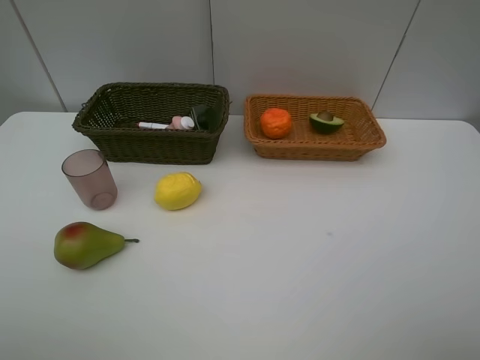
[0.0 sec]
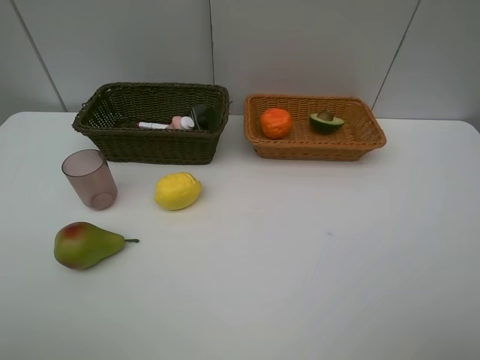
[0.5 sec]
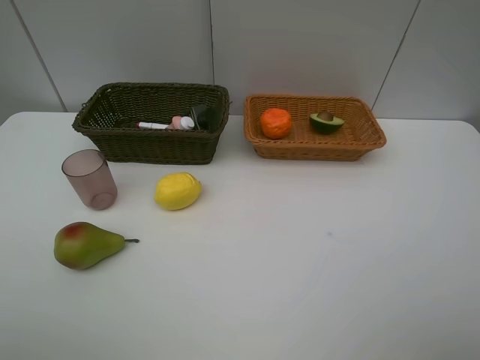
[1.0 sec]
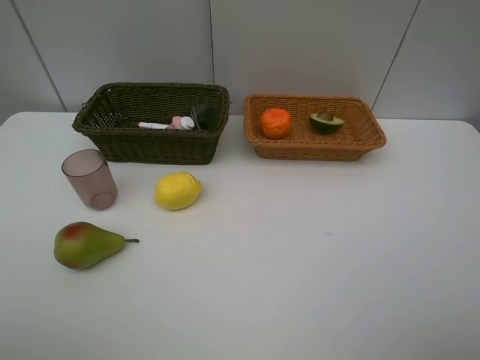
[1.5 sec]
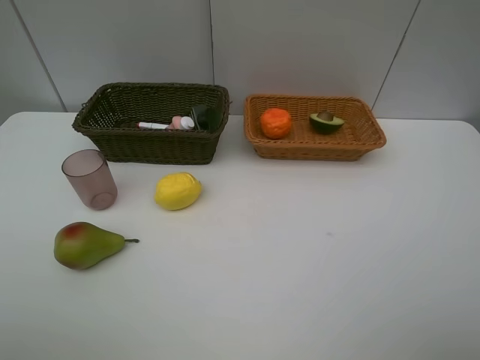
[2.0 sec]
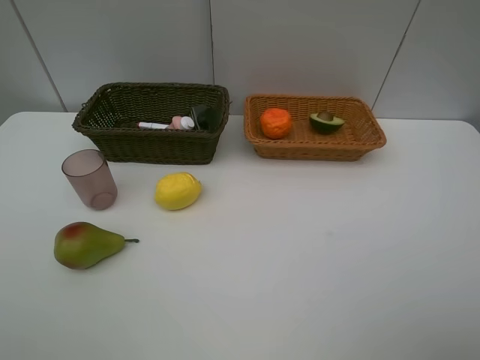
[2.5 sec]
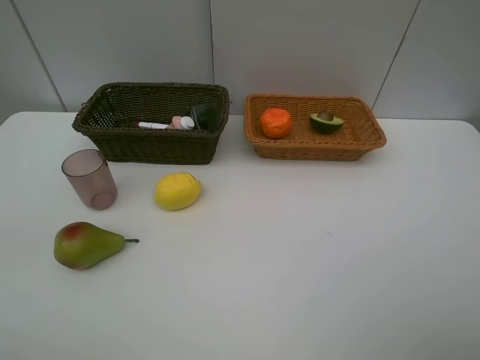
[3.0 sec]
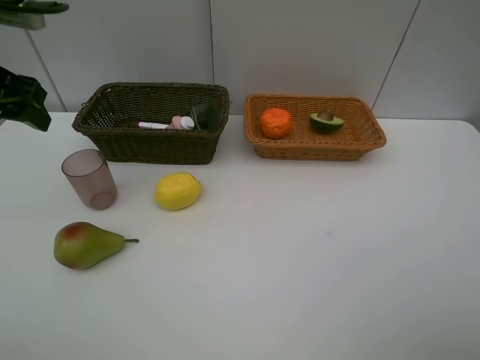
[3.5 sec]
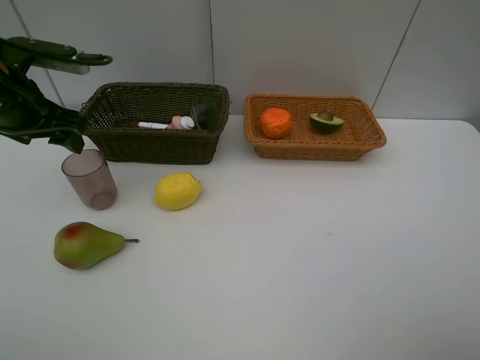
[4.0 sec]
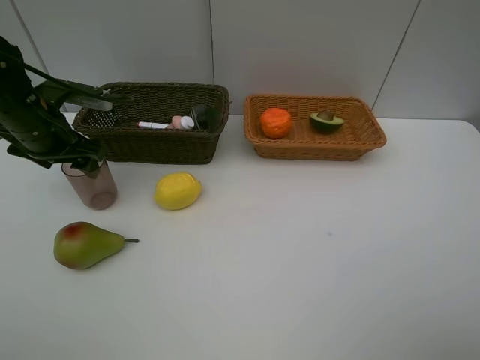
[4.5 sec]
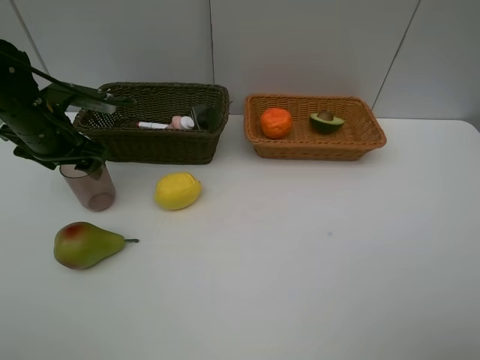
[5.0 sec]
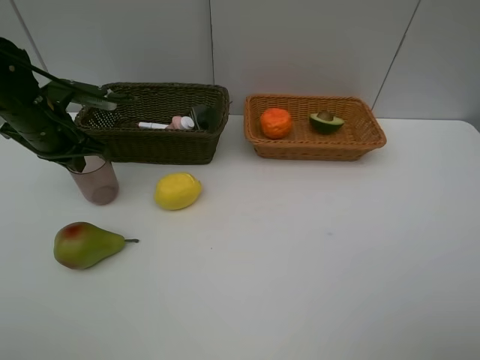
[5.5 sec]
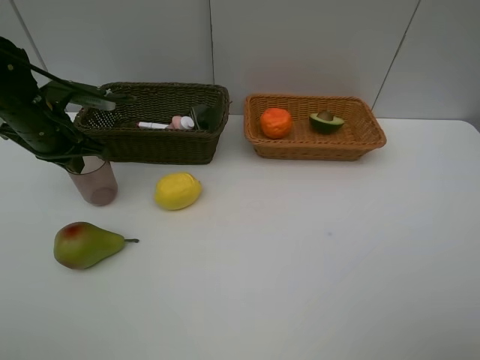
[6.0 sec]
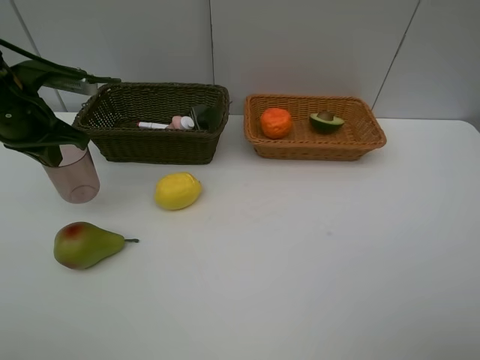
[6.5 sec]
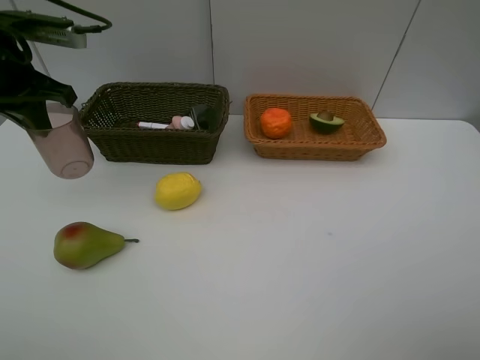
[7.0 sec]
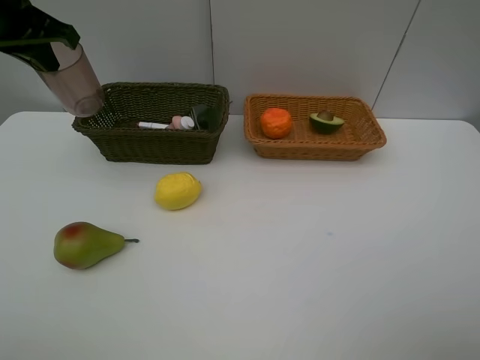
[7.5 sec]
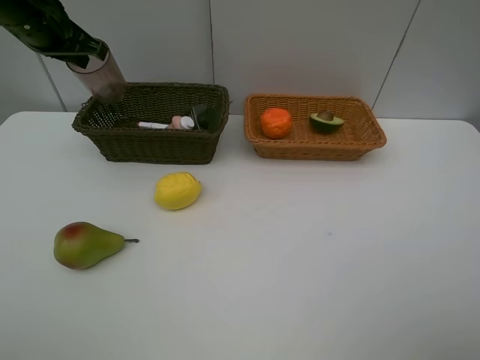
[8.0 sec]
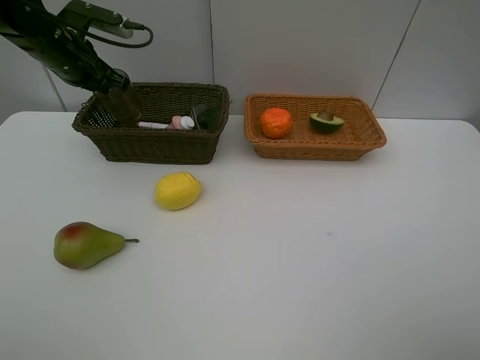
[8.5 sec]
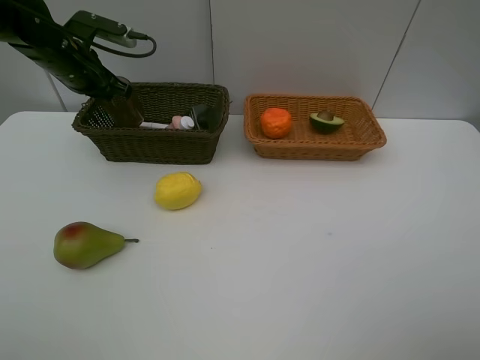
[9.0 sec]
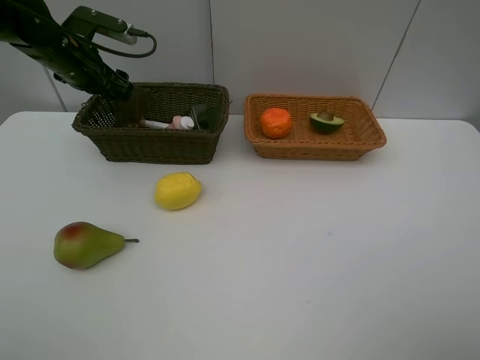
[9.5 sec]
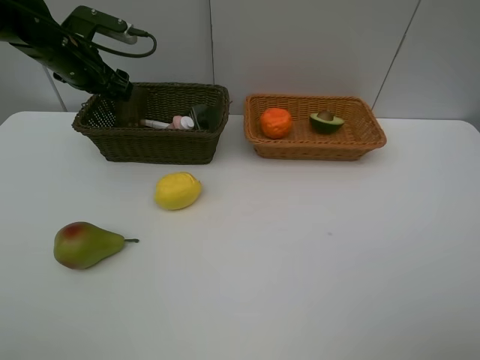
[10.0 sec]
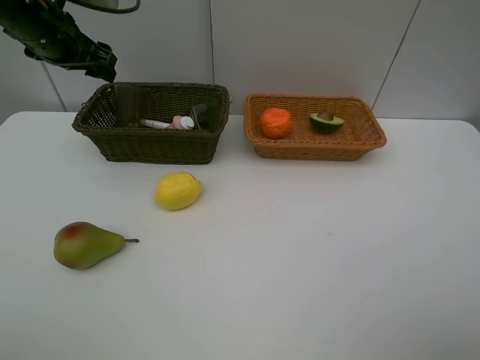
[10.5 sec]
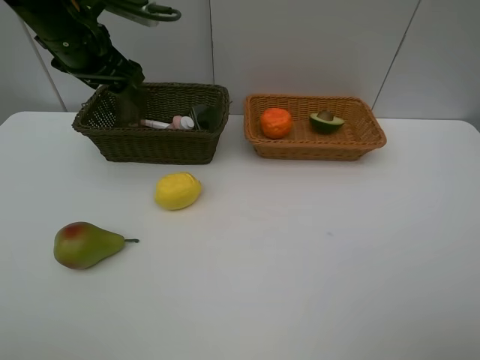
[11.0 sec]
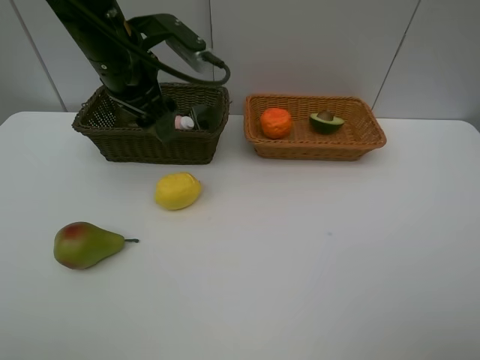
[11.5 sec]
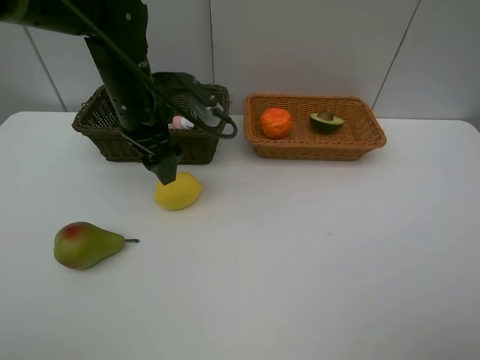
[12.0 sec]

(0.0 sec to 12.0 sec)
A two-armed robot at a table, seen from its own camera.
Task of the whole recording: Place multiple objects separately in different baskets.
Step, 0.0 sec - 6.0 sec: Pick up the red cup with left gripper.
Step, 6.5 sec - 10.0 sec: Place the red cup in the dark basket with left gripper.
2.0 sec - 4.0 sec: The left gripper is displaced forward by approximately 30 cm.
4.0 sec - 6.0 sec: The left gripper travels downward by roughly 5 cm, and closes.
6.0 sec - 8.0 sec: The left gripper goes roughly 15 cm upward and forward.
8.0 sec - 10.0 sec: The left gripper travels downward by roughly 5 cm, and opens its fingers.
10.0 sec - 12.0 sec: The left gripper goes roughly 15 cm to the right and backward.

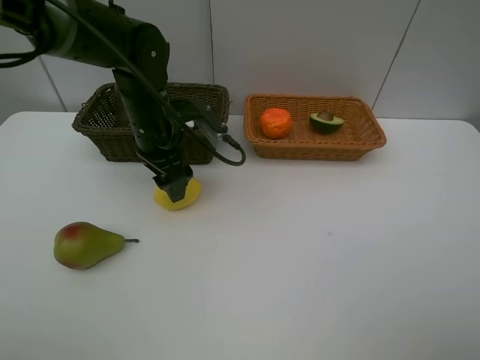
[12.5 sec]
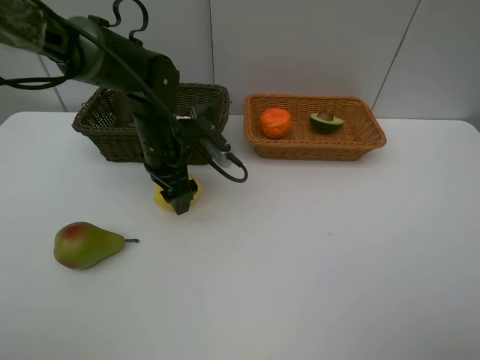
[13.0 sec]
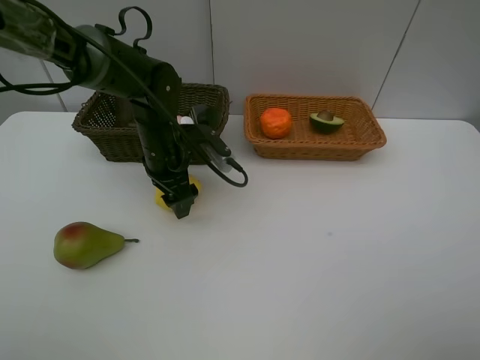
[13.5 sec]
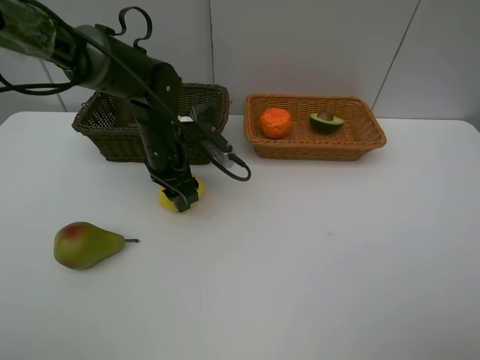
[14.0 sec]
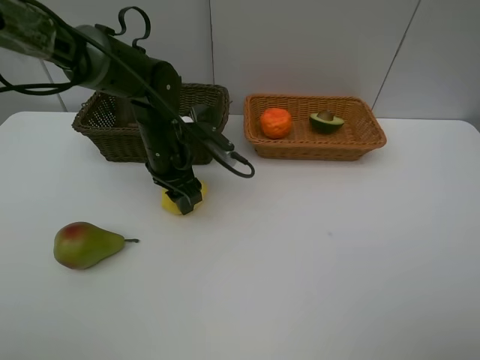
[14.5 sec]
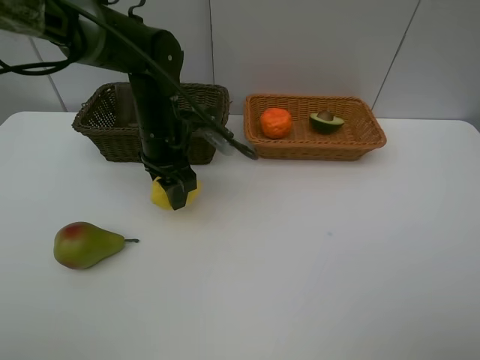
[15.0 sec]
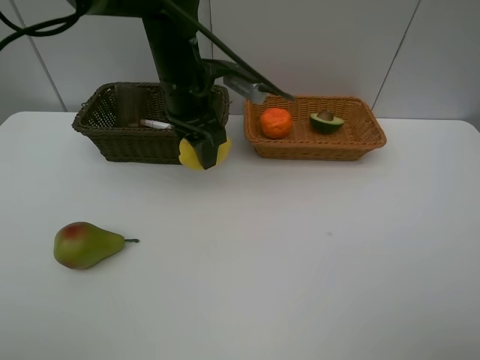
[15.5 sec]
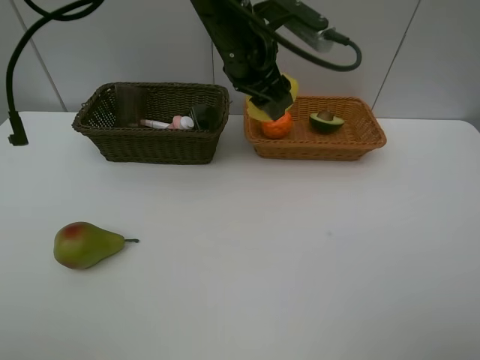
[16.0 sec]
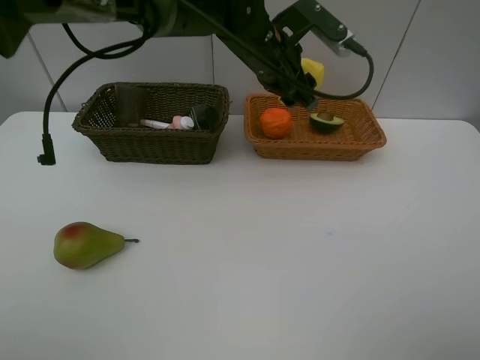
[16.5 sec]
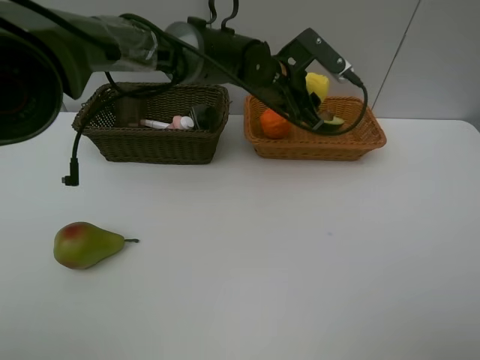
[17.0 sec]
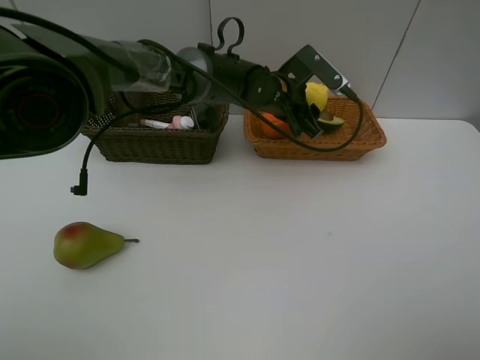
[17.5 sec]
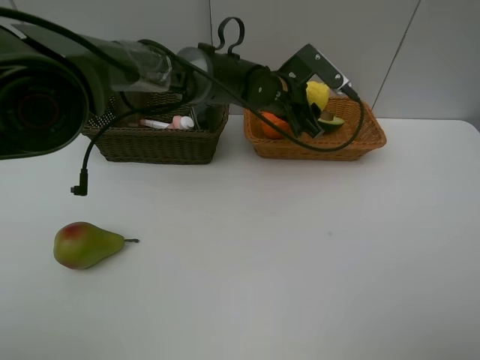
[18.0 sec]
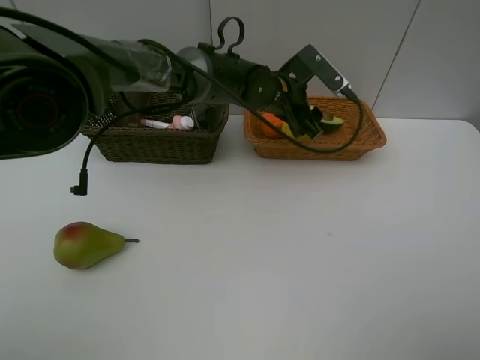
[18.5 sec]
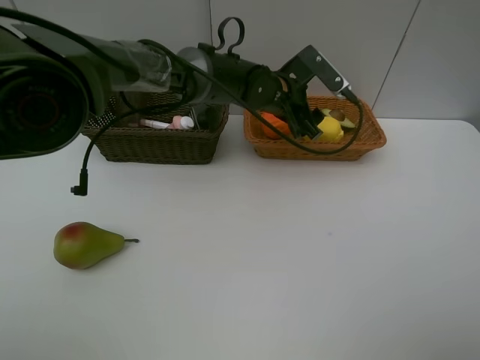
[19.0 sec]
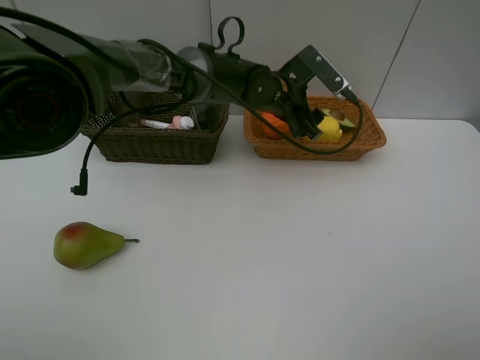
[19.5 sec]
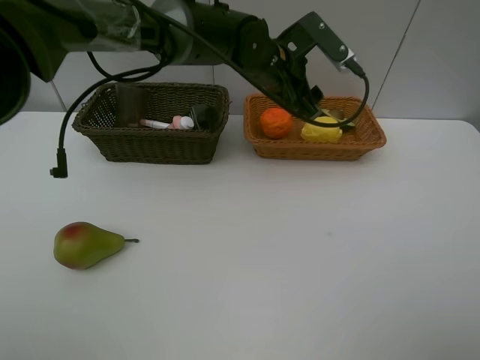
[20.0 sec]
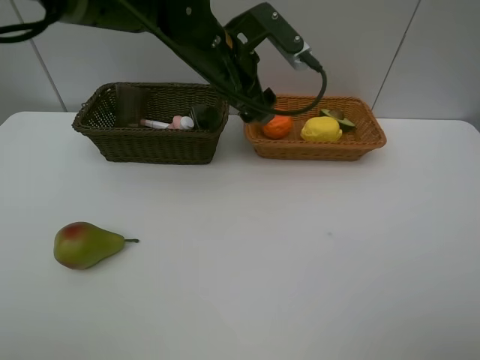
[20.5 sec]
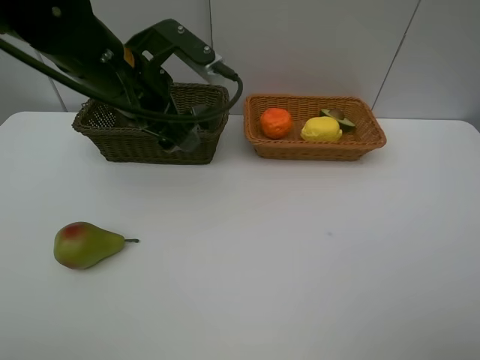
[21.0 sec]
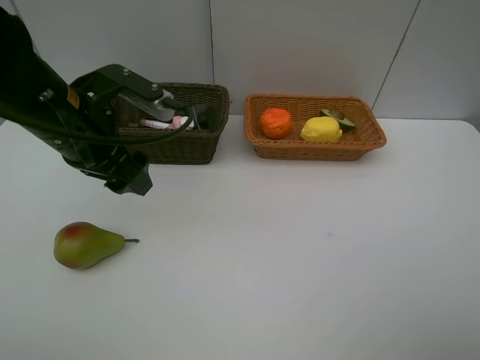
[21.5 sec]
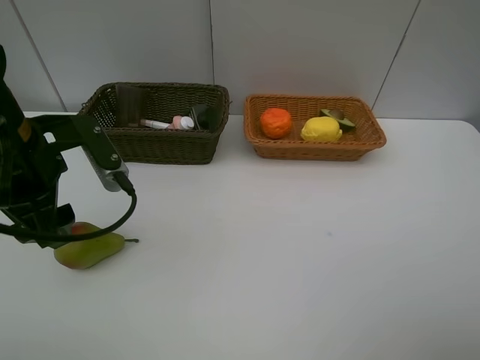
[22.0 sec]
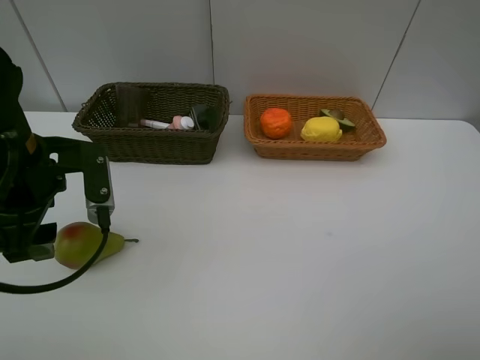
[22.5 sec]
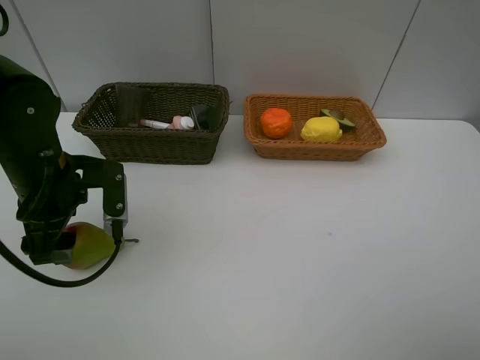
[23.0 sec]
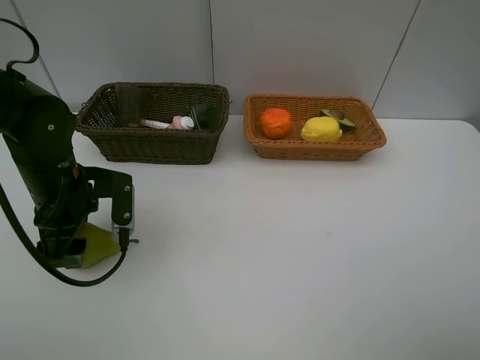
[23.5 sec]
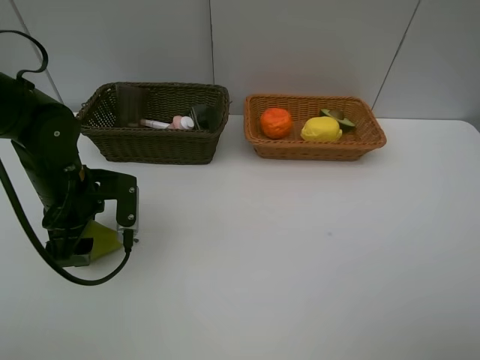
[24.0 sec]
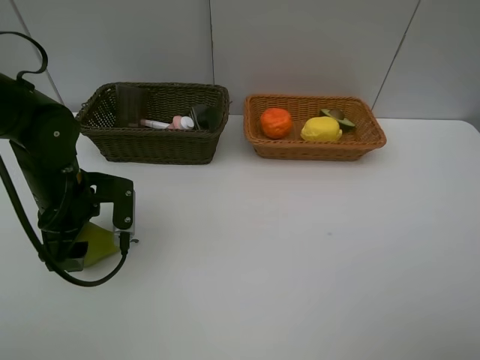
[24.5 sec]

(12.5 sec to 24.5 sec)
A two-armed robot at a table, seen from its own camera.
Task of the whole recording: Place multiple objects separately in different baskets.
Step, 12.5 sec - 15.0 sec: Pick up the lemon with left gripper.
Step, 15.5 sec - 19.5 sec: Place the lemon in the light basket with left gripper.
12.5 sec - 14.5 sec: The grippers stay close to where they were, moving slightly.
14.5 sec - 16.5 sec: The left gripper shifts some 20 cm to the right and upward.
16.5 sec - 18.5 sec: The left gripper moves downward, about 5 cm.
18.5 sec - 20.5 sec: The left gripper heads to the left, upward and backward, covering approximately 15 cm.
20.5 sec - 22.5 sec: The left gripper shifts some 20 cm to the left and backward.
22.5 sec - 24.5 sec: The left gripper travels downward by some 10 cm.

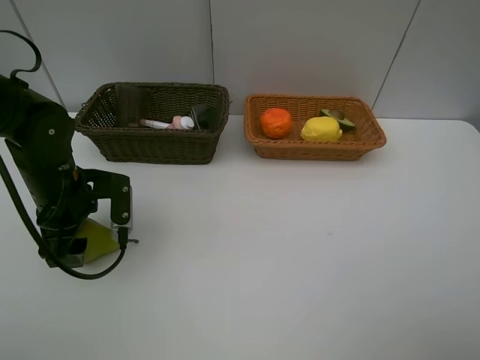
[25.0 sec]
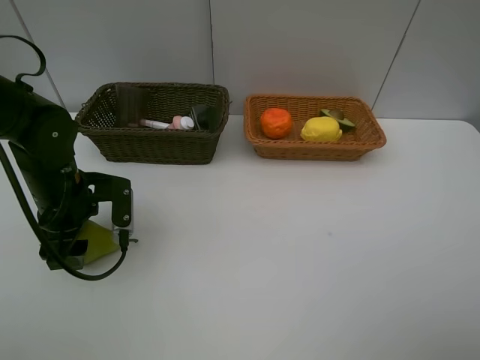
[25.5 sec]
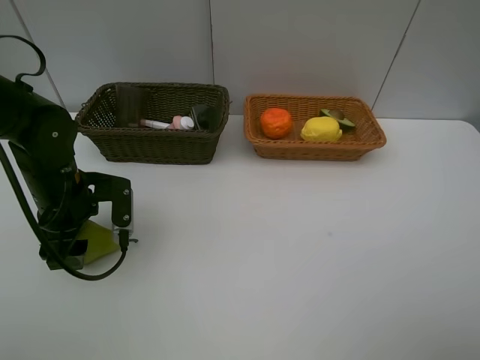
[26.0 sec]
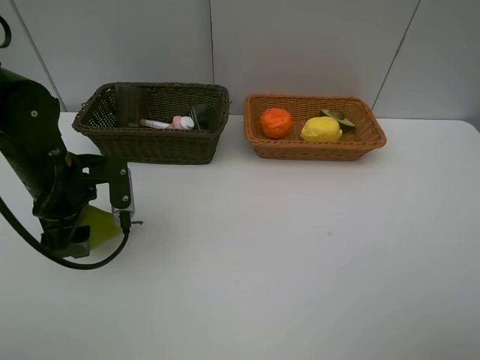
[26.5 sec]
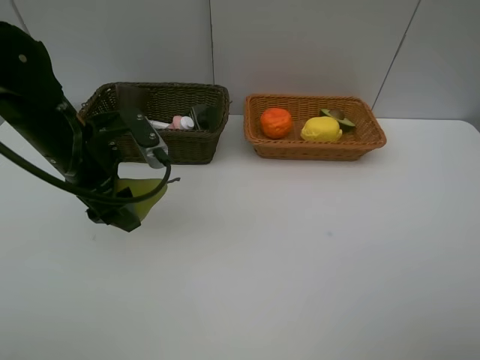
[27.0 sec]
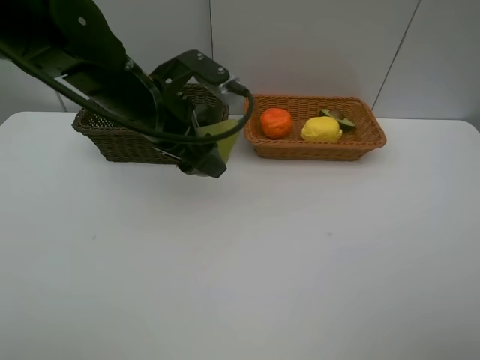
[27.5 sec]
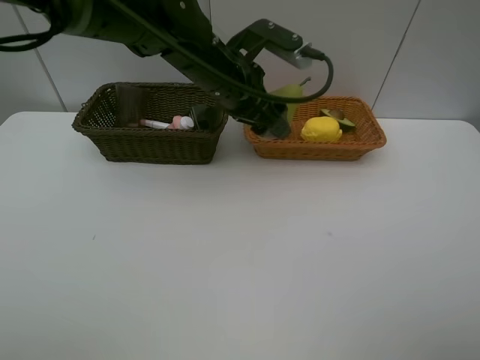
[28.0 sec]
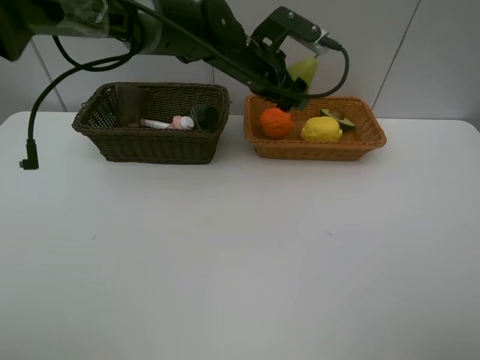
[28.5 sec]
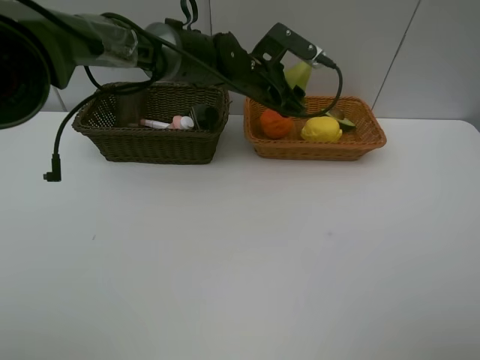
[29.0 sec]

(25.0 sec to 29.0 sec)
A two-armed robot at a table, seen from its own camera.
Task of the whole recording: Place multiple objects separately in different baskets.
25.0 sec - 27.0 sec: The left gripper shifts some 5 cm upward.
27.0 sec - 29.0 sec: The left gripper moves to the right and forward, approximately 25 cm.
